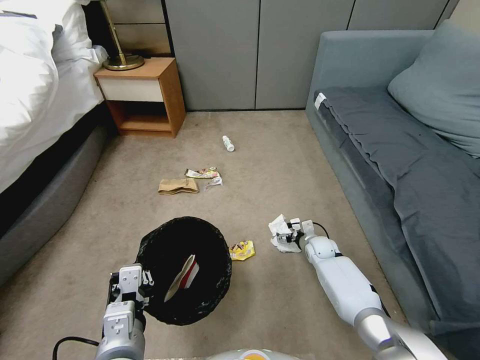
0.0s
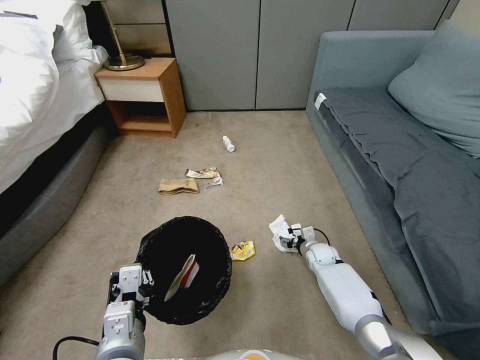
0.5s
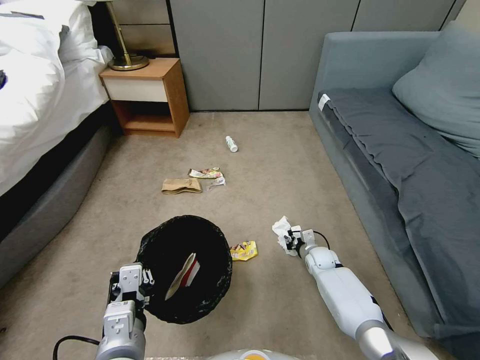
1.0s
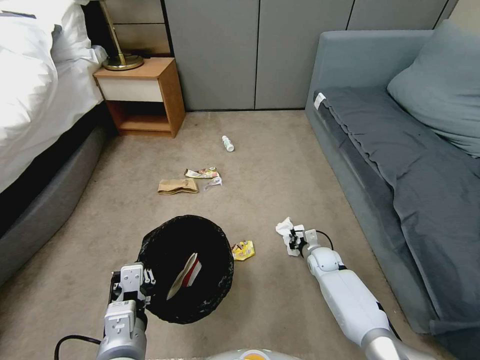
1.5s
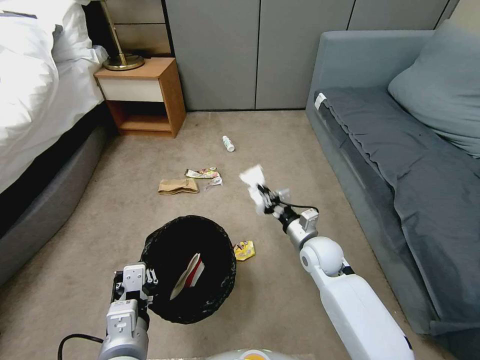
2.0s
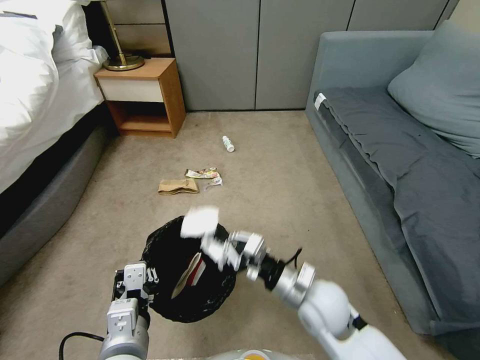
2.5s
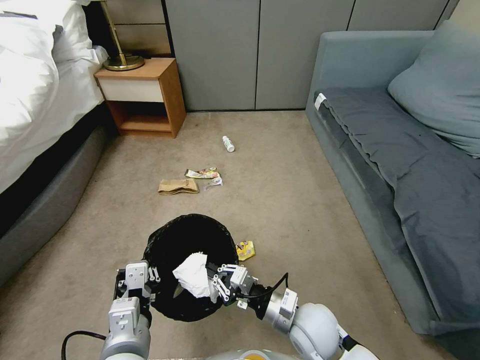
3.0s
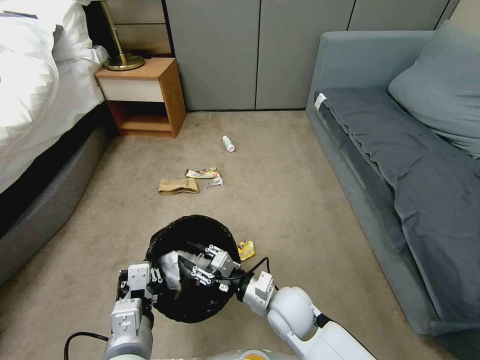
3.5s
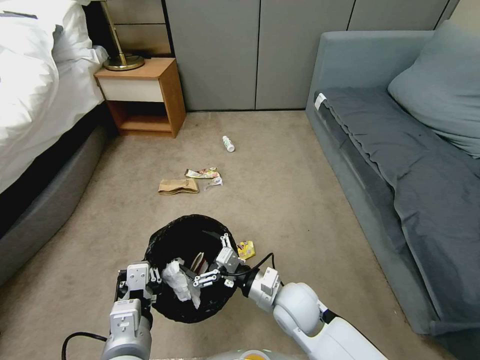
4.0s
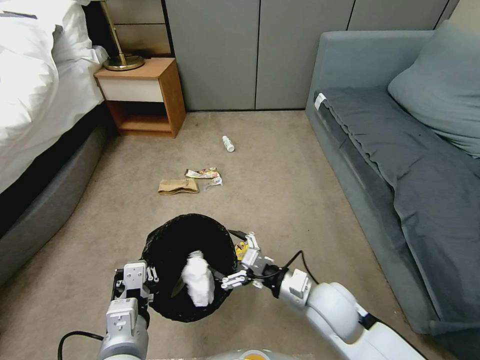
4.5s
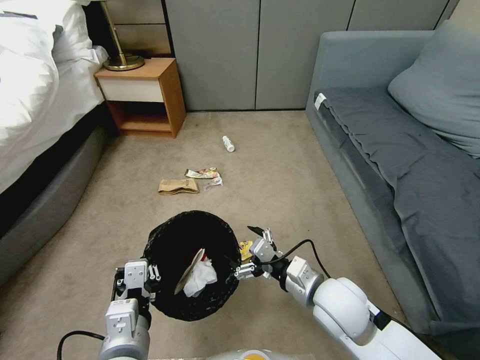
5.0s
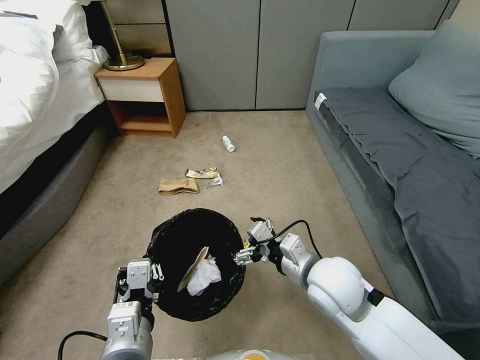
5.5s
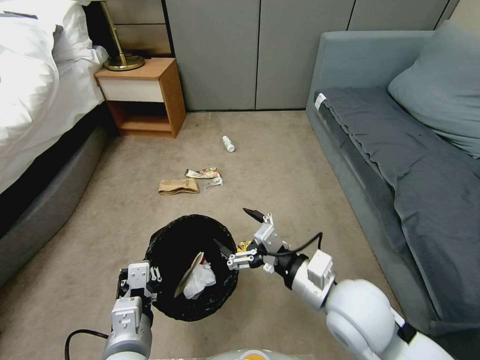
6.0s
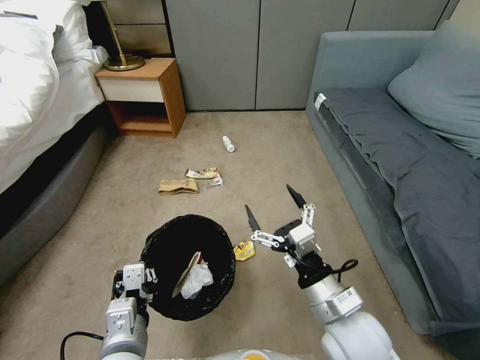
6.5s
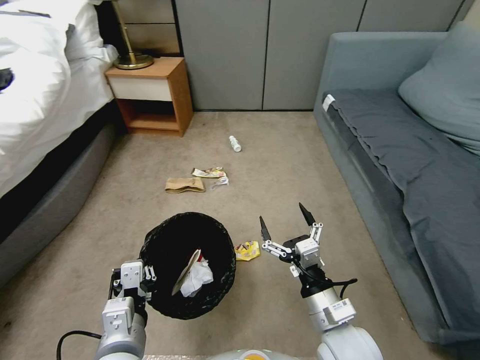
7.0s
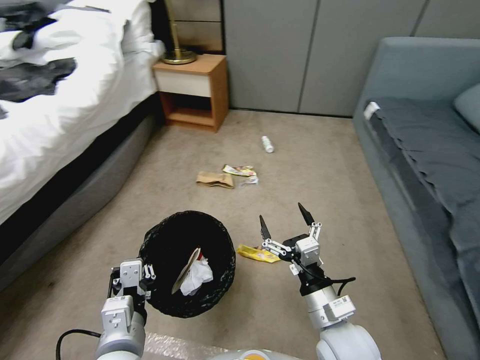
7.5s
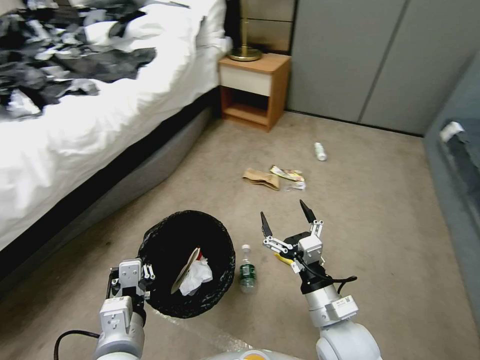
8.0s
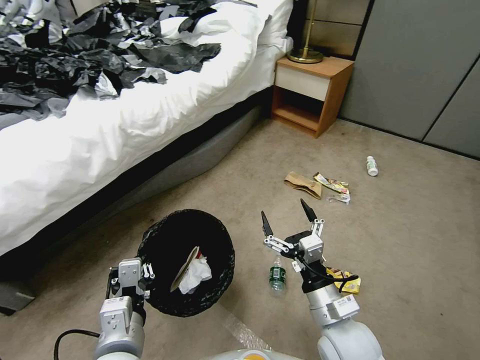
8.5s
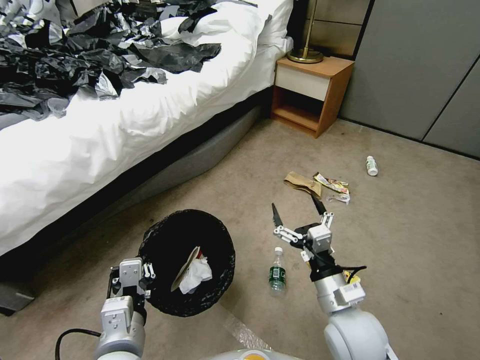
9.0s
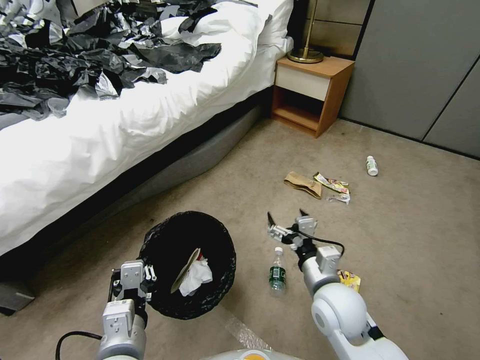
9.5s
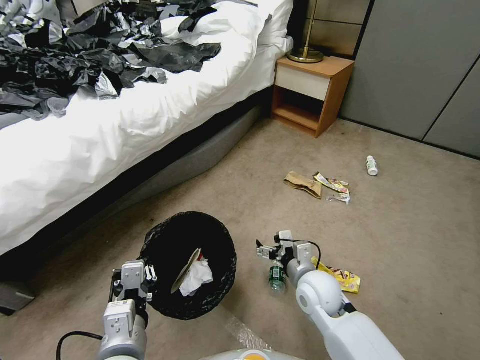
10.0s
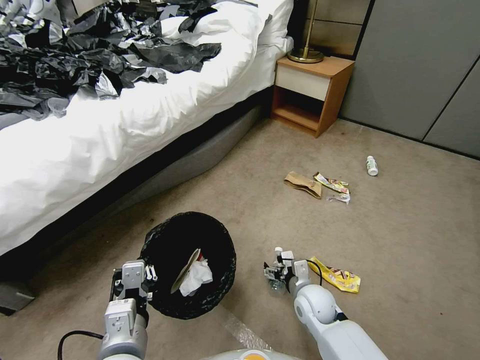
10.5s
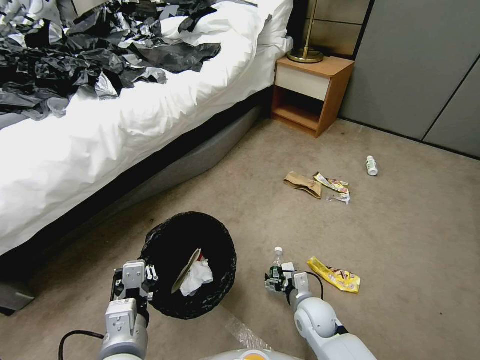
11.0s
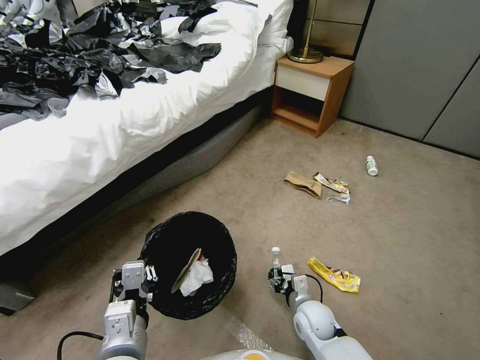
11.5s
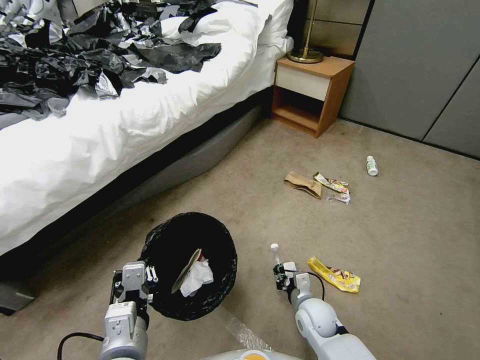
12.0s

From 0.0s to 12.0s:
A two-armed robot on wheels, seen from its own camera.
Task of the whole recording: Pick up the trash bin, then pick up the garbage from the floor and place it into the trash bin.
From 0.0s to 2.0s: The right gripper travels upward, backward and to the left by some 20 cm, and closes up.
From 2.0s to 4.0s: The right gripper shifts roughly 15 cm backward and to the left, and opens its fingers.
From 4.0s to 6.0s: The right gripper shifts approximately 15 cm upward and to the right.
From 6.0s to 8.0s: The right gripper goes roughly 10 cm downward.
From 8.0s to 10.0s: The right gripper heads forward and downward, covering roughly 15 cm.
From 10.0s to 12.0s: The right gripper shifts some 10 cm downward, and closes up.

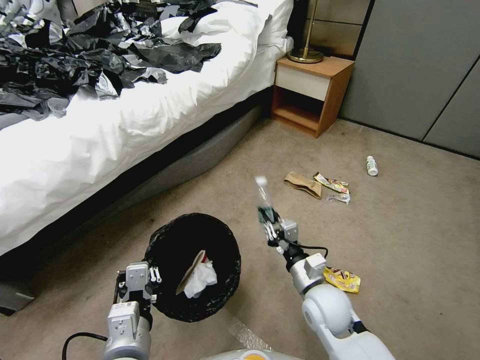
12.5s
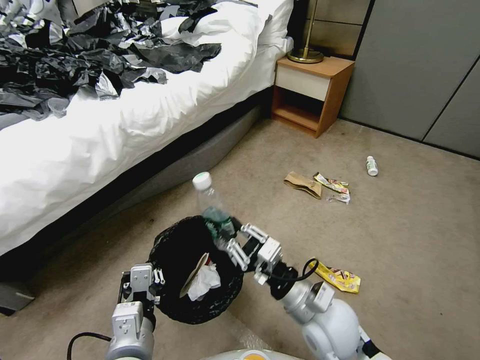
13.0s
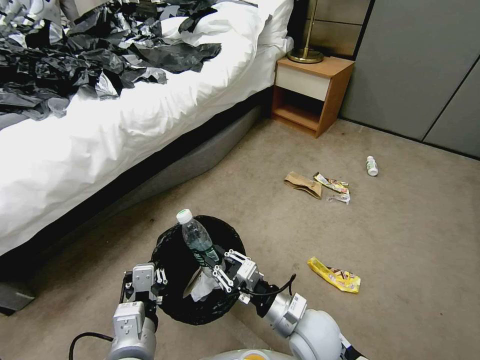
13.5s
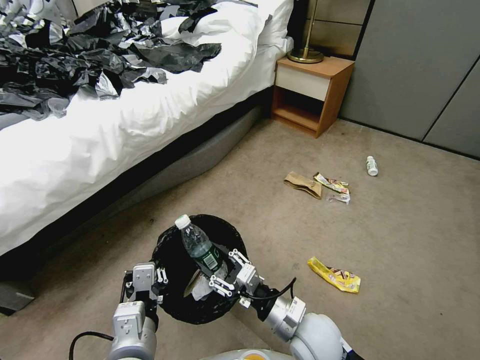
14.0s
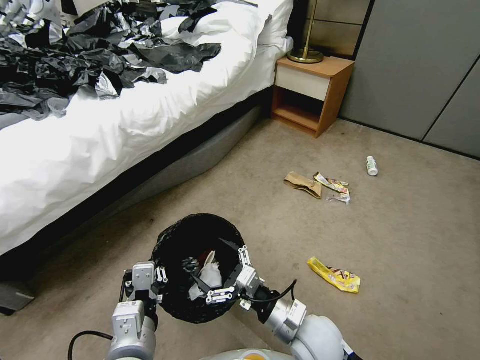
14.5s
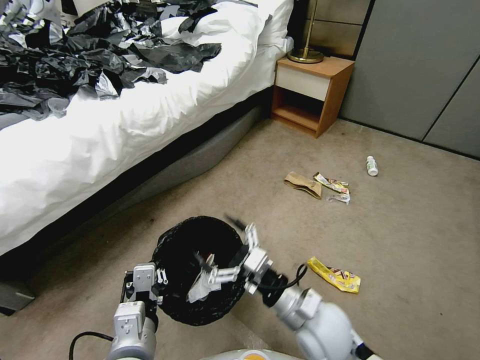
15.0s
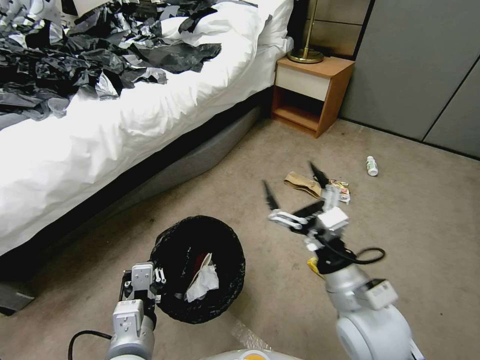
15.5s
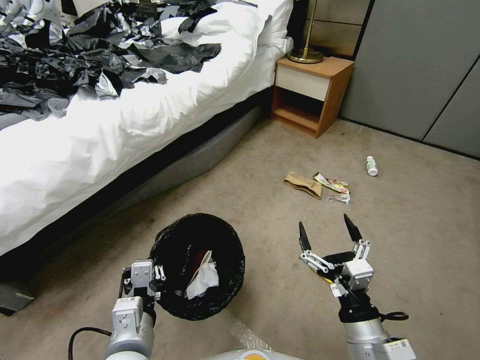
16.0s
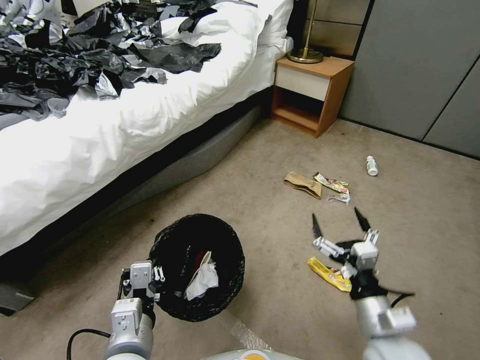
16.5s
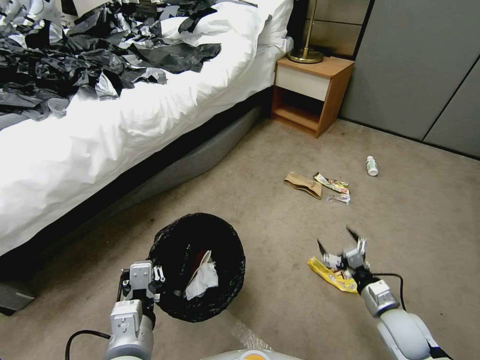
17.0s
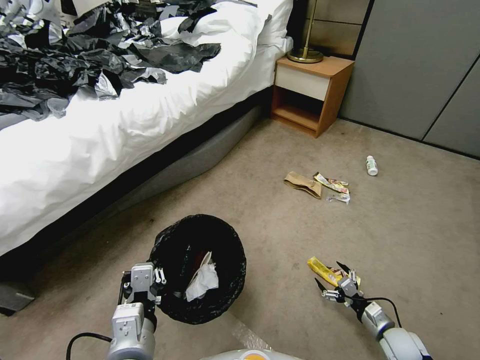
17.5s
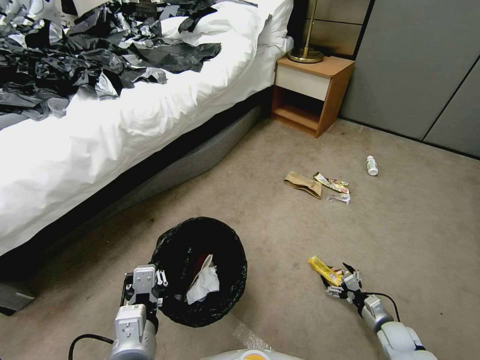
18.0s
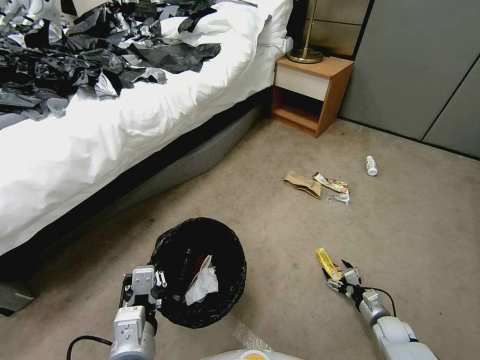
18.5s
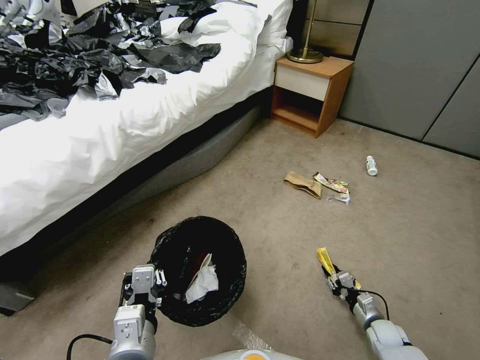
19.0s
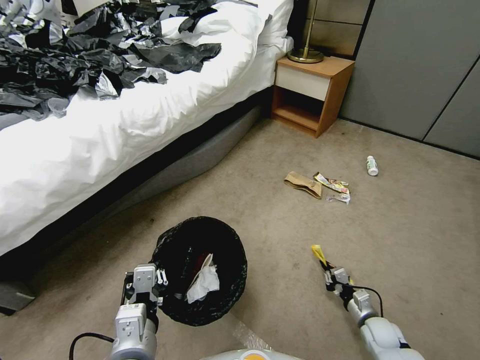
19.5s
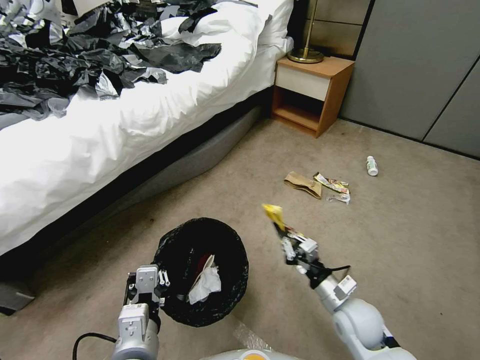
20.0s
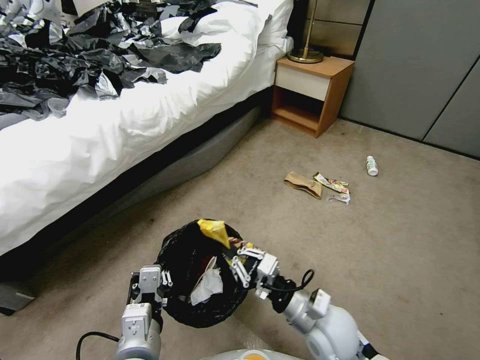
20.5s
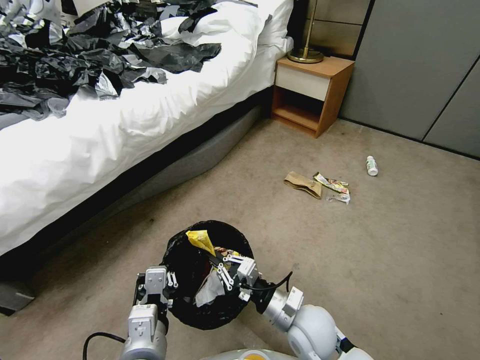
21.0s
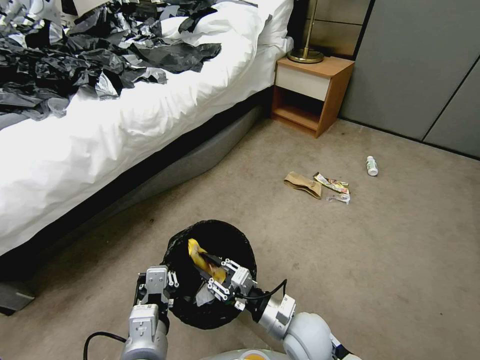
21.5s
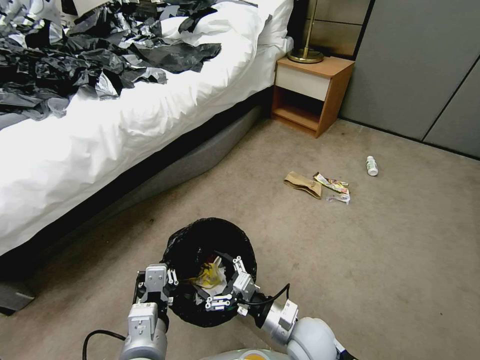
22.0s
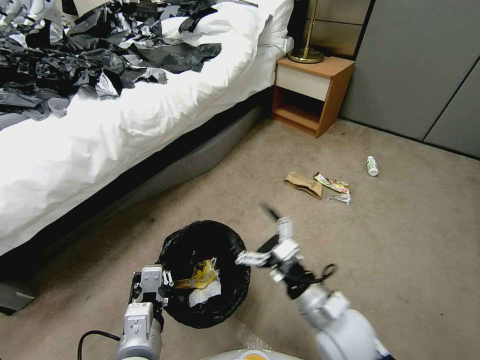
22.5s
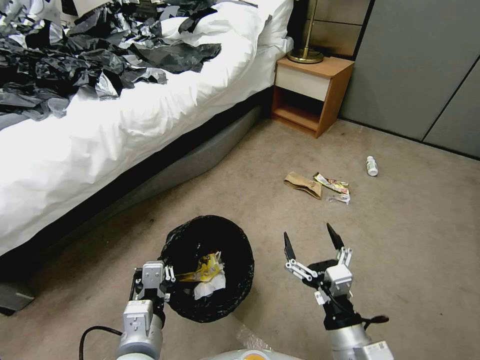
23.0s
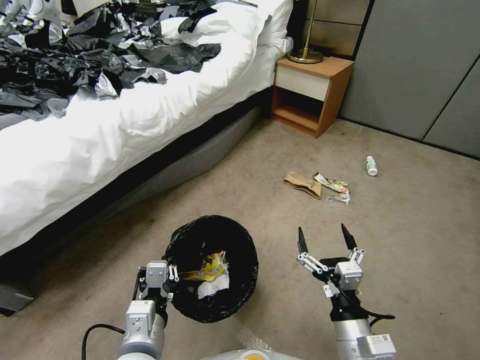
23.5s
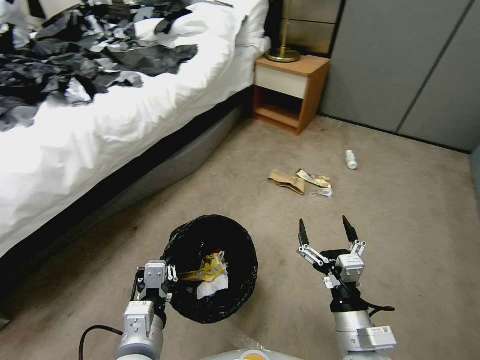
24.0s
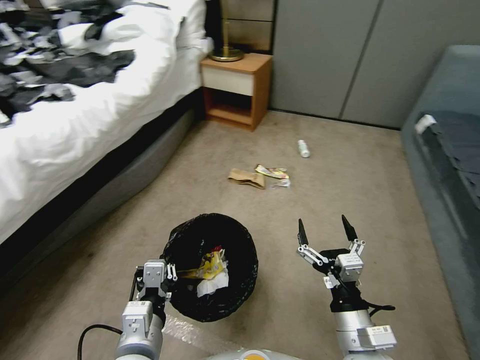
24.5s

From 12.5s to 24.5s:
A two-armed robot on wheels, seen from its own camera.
Task of the whole recording: Pick up the trash bin, then pick up the garbage from the floor and place it into the trash bin.
From 12.5s to 14.5s: The right gripper heads backward, covering some 5 cm, and opens its fingers.
From 14.5s to 16.5s: The right gripper goes approximately 15 cm to the right.
From 16.5s to 18.5s: The right gripper goes about 30 cm downward and to the right.
From 18.5s to 20.5s: The right gripper heads to the left and upward, covering approximately 35 cm, and closes up.
From 20.5s to 22.5s: The right gripper travels downward and back again, about 5 cm each way, and opens up.
From 22.5s to 24.5s: The right gripper moves backward, some 5 cm.

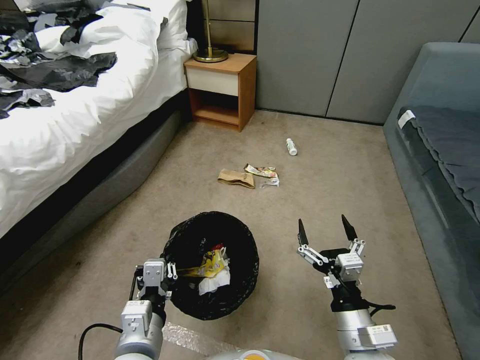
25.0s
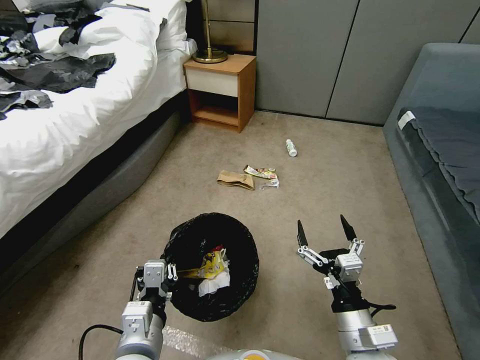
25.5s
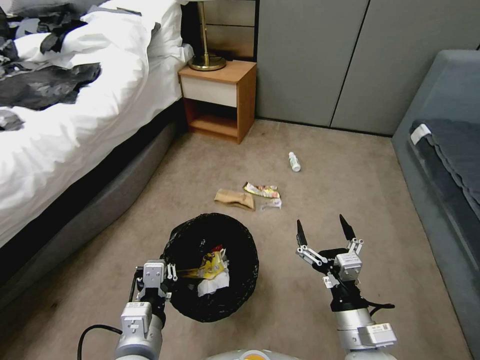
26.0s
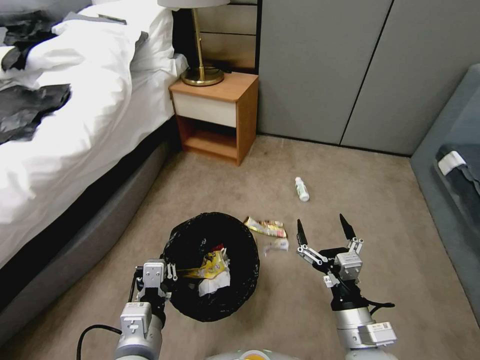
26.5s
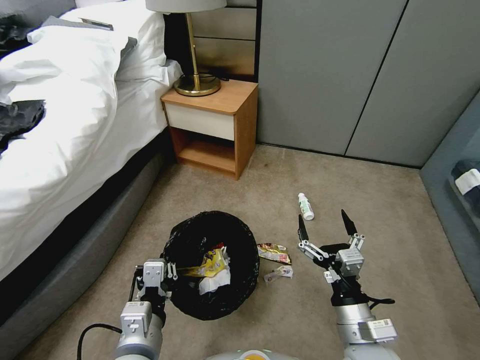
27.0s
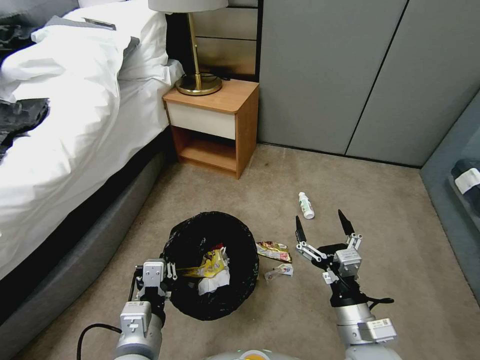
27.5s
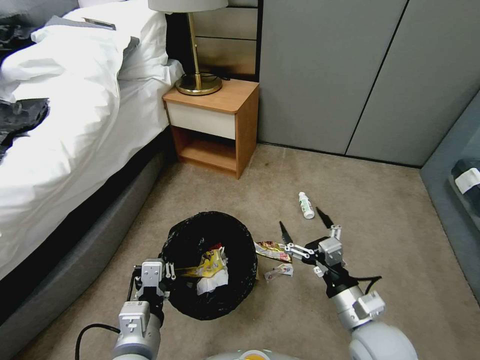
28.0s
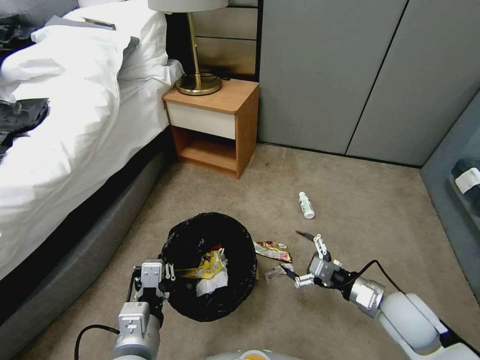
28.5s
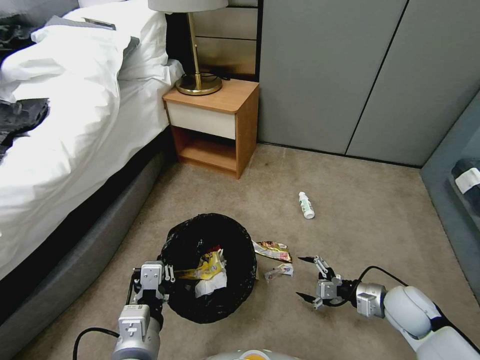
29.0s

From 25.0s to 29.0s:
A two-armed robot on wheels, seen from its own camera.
Task of the whole recording: Pick up the trash bin, then pick up the garbage from the floor and place it into the trash bin.
From 27.0s to 29.0s: The right gripper goes some 20 cm to the right, forward and downward.
